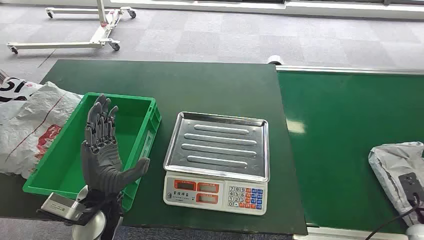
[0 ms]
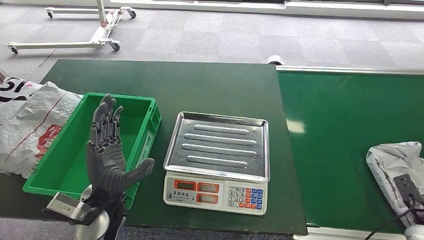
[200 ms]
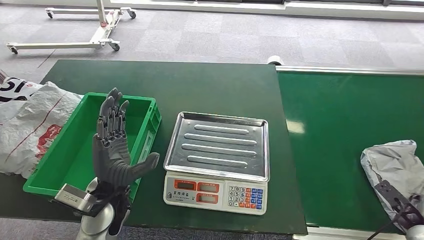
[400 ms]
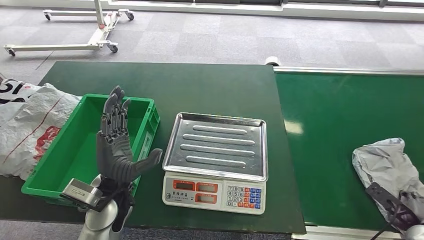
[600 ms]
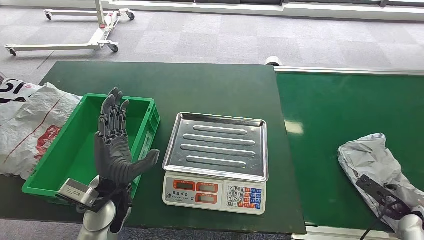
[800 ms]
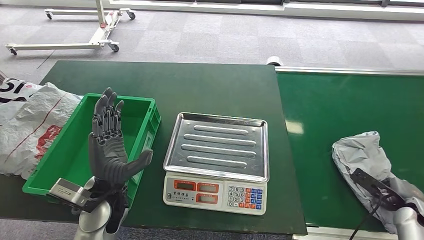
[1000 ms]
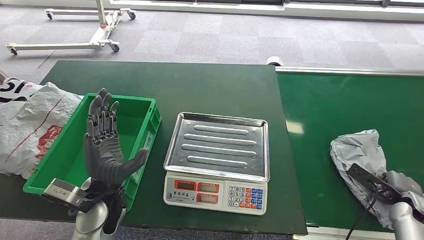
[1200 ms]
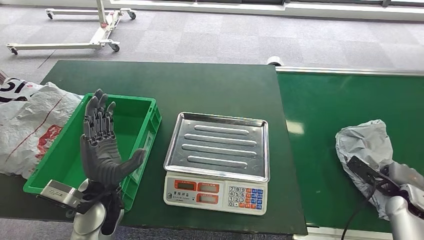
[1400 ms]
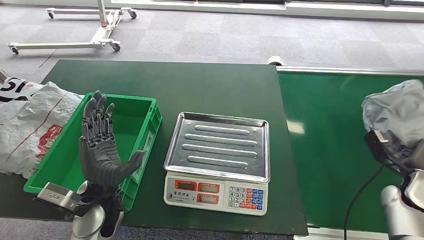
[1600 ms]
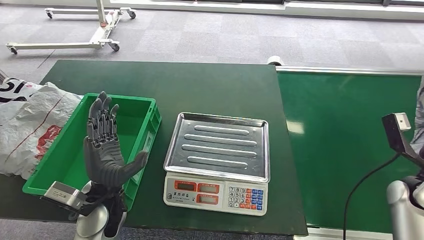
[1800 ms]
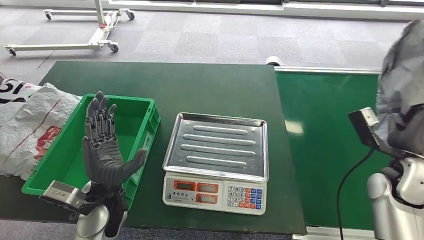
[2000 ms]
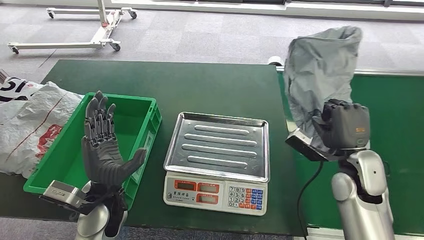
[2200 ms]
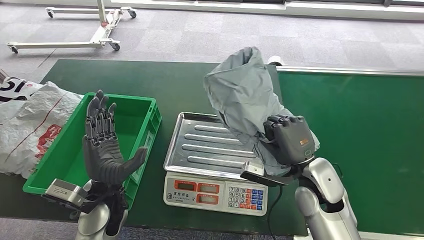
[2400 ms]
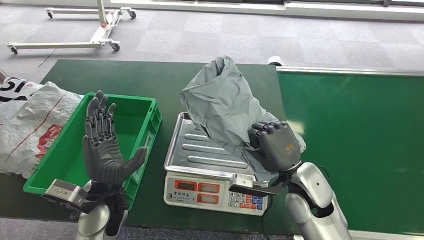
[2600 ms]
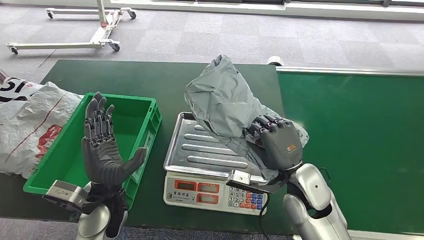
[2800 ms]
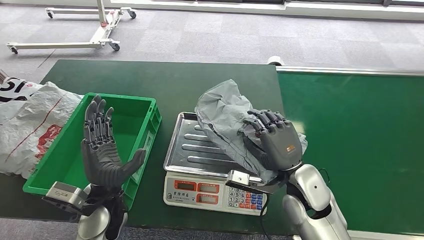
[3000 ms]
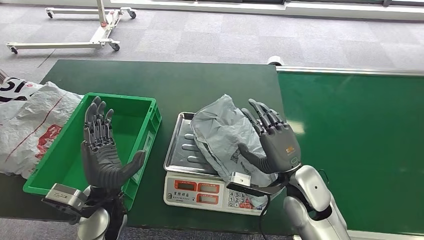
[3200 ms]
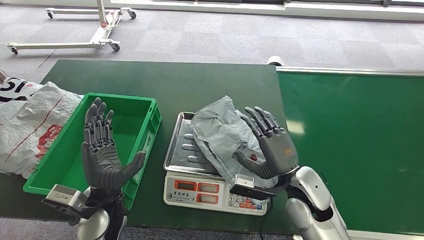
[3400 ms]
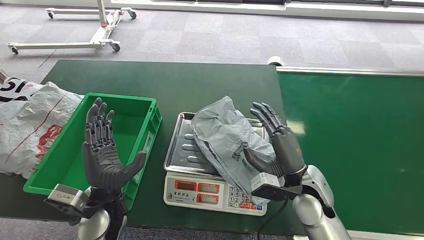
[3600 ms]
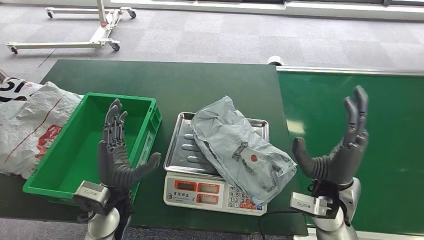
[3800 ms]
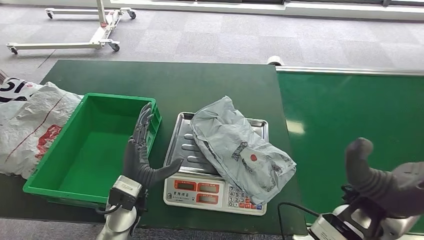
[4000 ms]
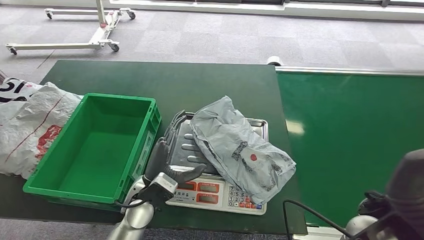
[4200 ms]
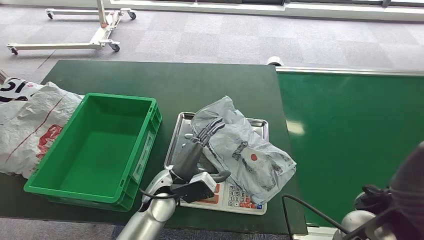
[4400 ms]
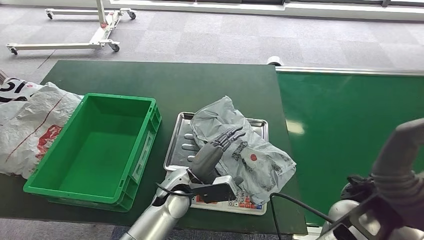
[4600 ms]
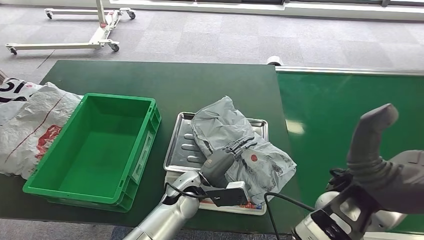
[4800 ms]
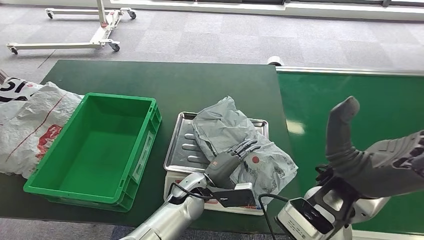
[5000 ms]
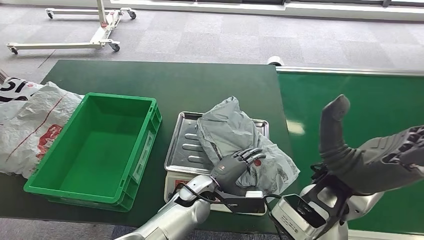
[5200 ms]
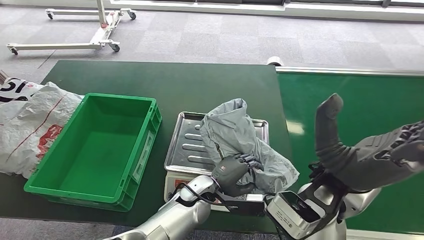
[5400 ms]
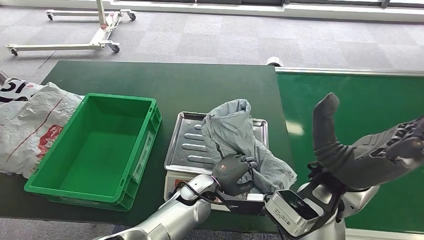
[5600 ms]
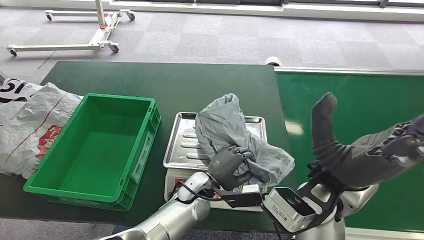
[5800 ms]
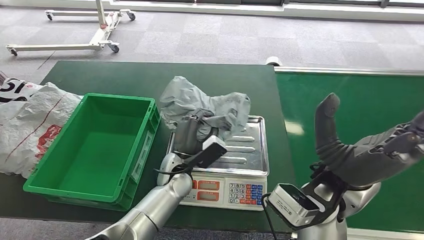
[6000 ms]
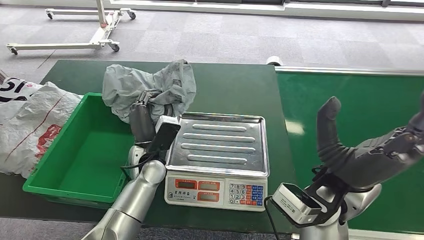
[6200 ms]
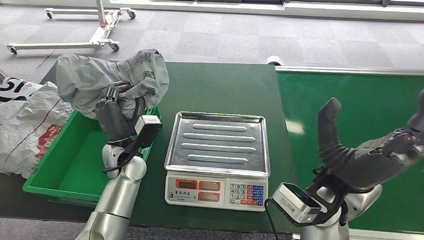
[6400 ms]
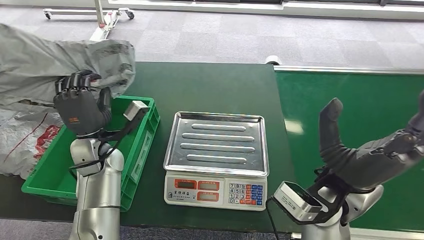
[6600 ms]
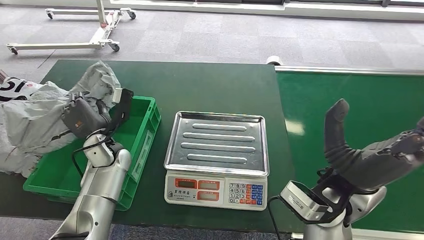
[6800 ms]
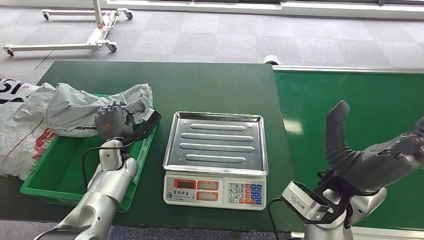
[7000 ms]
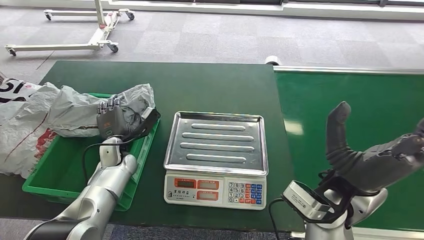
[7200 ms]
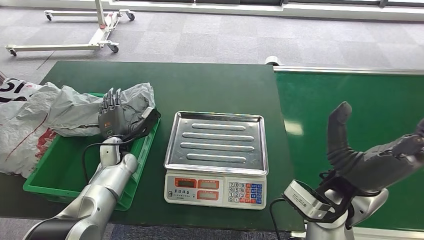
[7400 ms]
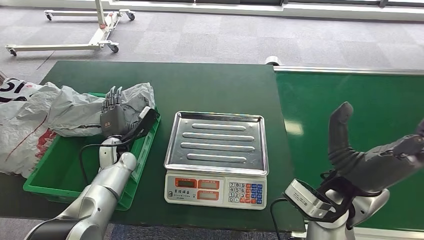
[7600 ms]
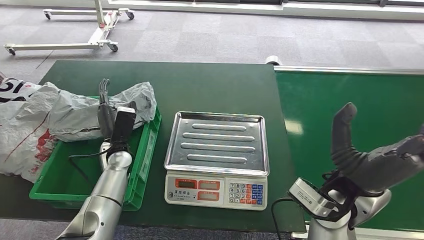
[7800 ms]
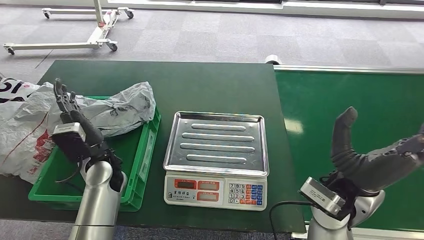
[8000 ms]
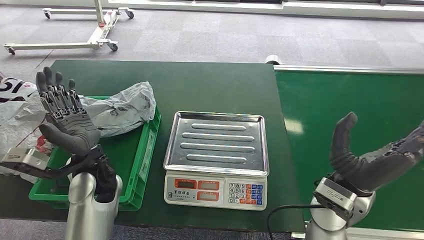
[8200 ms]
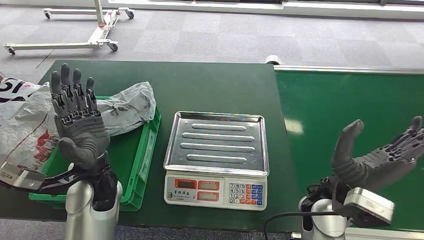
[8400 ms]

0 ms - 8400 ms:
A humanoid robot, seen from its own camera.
Step, 0 ms - 2000 ms: Pick up the package from the conveyor belt.
Step, 2800 ms - 3800 ms: Place the package onto the inbound machine.
Step, 4400 ms - 6000 ms: Pick up the package from the inbound machine.
Step, 6400 ms - 8400 ms: Place the package into the parcel locker.
1400 ms - 2800 ms: The right hand heads to the left, covering approximately 30 cm.
